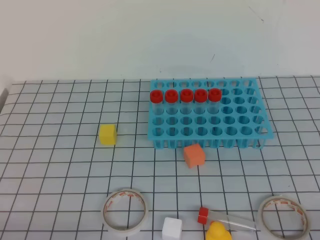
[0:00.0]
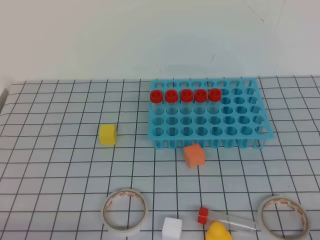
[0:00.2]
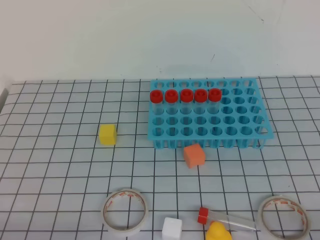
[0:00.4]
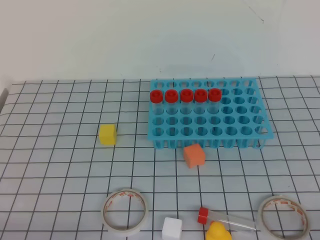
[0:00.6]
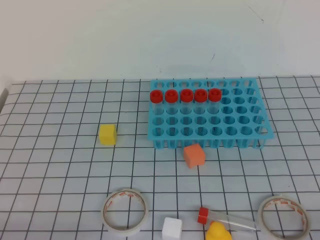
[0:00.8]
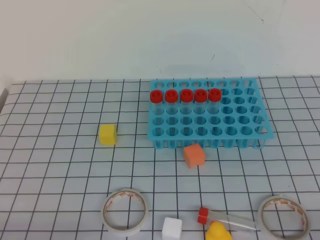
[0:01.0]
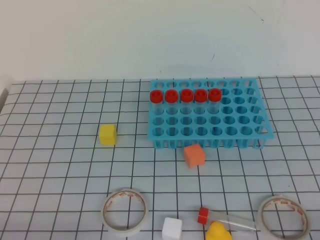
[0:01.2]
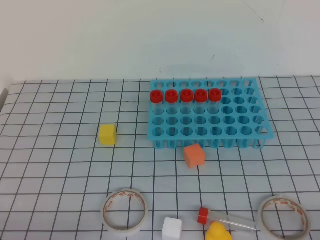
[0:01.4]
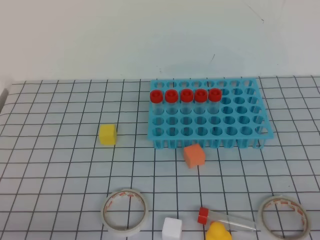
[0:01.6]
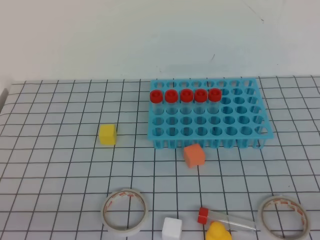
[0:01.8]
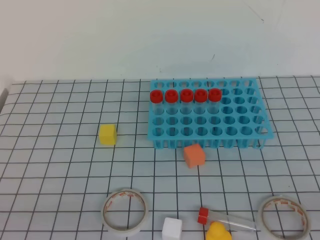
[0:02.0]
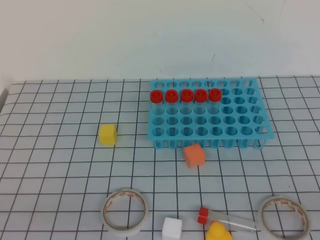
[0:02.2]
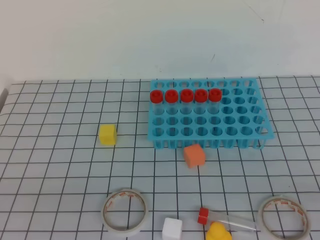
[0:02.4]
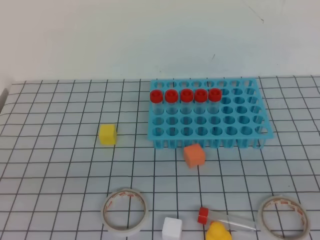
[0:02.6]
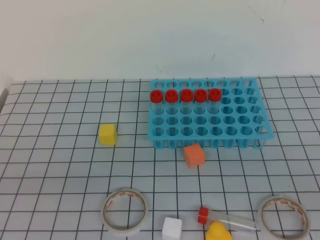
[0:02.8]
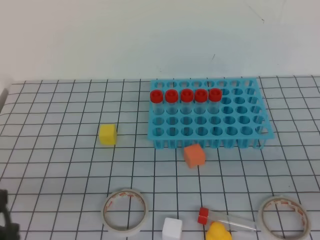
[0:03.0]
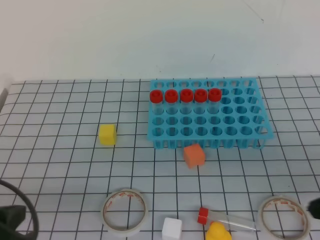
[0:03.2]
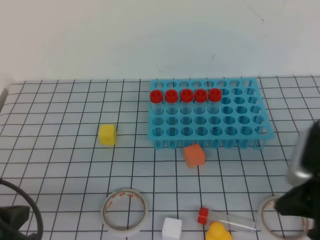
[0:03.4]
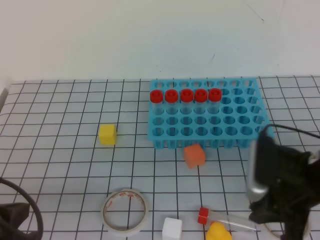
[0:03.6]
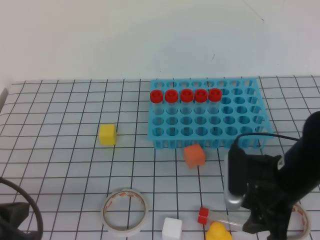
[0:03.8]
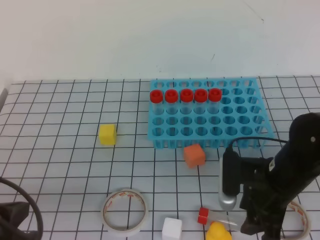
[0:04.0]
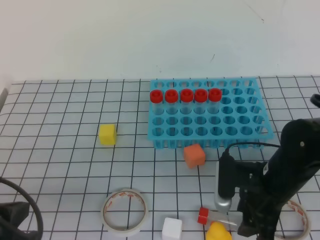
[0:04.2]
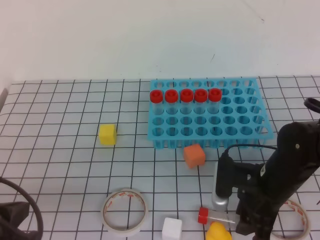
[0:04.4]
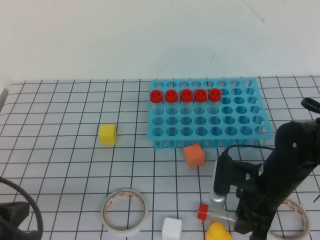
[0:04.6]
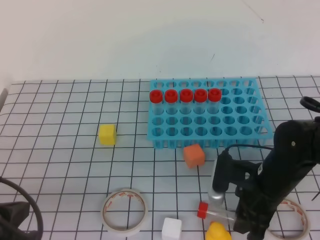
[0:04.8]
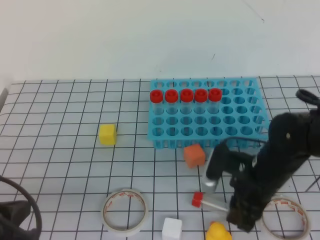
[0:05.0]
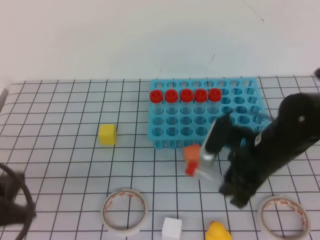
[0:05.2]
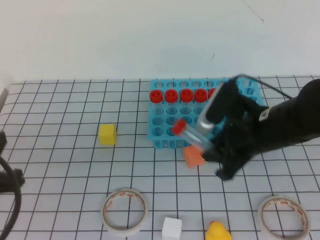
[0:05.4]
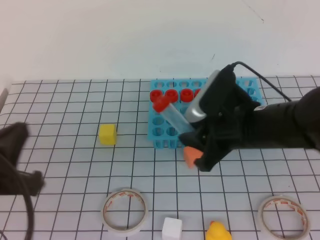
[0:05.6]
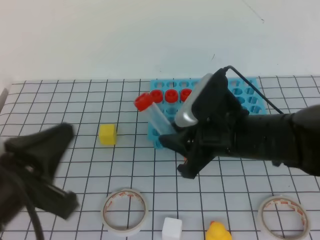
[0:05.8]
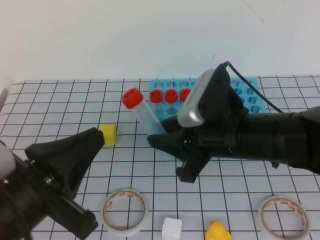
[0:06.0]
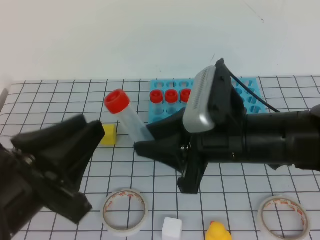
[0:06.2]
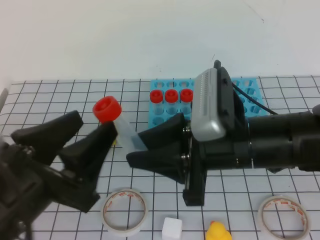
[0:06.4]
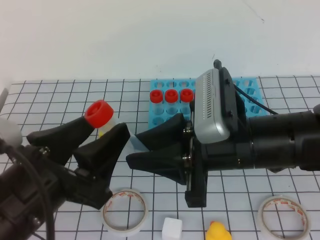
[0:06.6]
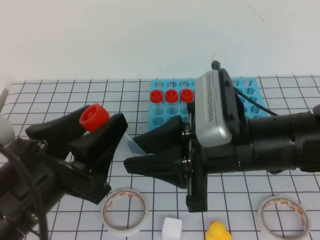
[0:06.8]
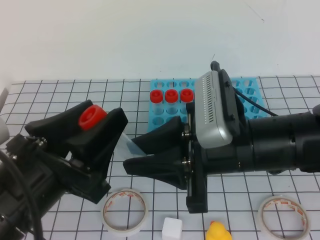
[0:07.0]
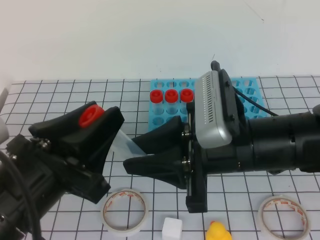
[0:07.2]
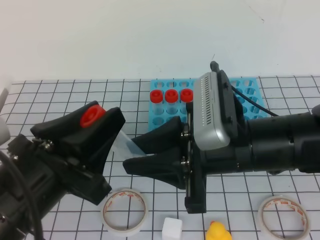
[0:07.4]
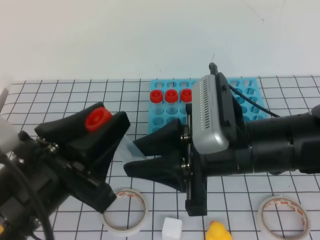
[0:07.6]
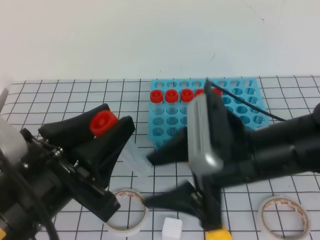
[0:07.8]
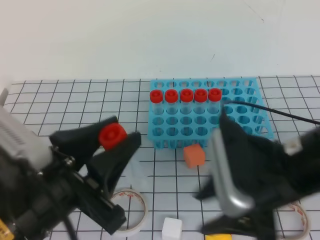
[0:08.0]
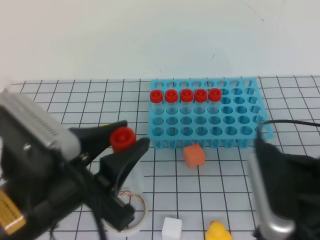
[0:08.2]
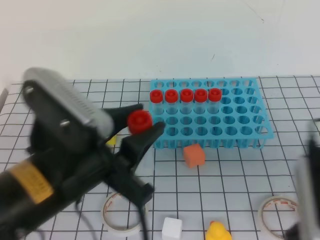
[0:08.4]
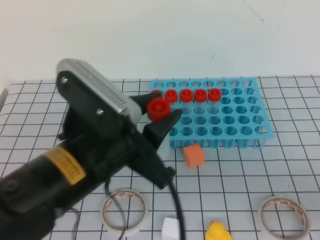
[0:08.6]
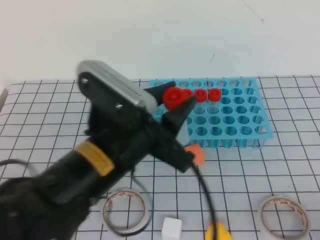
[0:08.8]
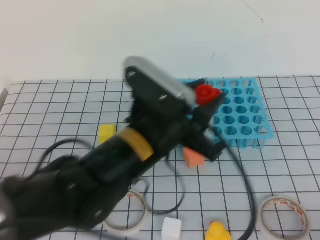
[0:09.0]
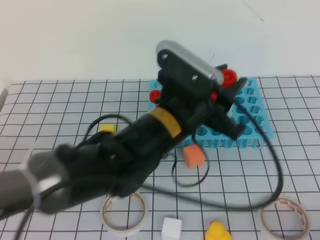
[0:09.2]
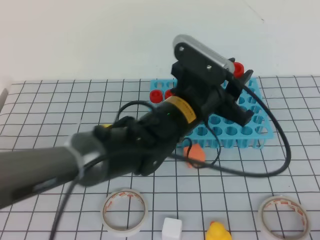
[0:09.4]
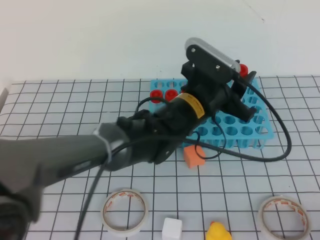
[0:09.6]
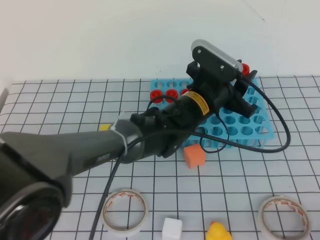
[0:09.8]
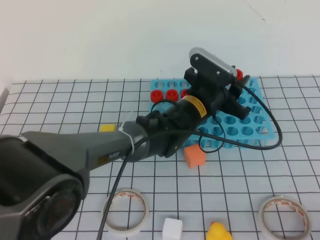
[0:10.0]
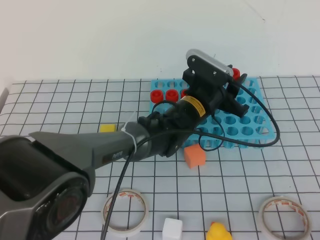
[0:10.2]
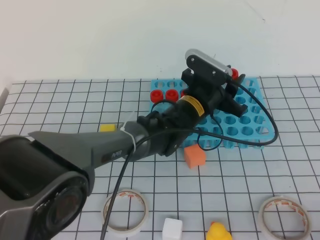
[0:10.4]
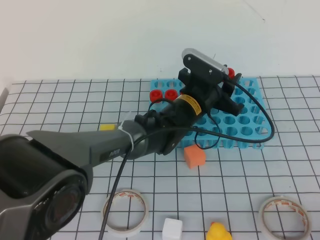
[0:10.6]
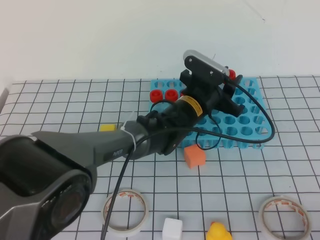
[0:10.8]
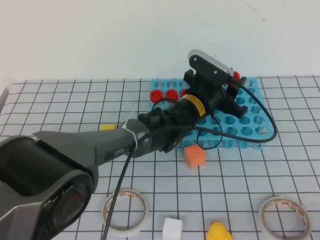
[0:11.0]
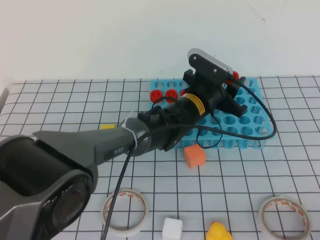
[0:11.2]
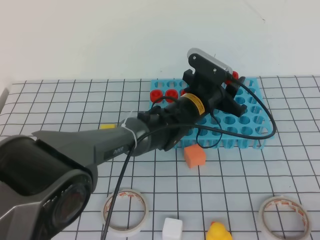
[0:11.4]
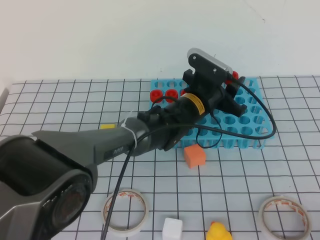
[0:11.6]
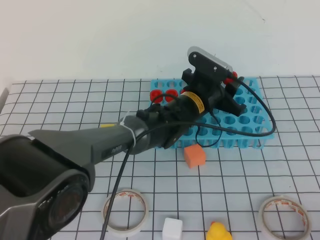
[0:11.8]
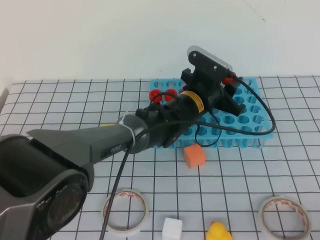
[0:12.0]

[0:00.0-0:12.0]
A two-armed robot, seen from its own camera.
0:01.6 to 0:03.0: The left gripper is displaced upward and forward by some 10 cm.
0:03.0 to 0:04.4: The right gripper goes roughly 25 cm forward, to the left and downward, and opens its fingers.
0:04.4 to 0:06.0: The right gripper travels upward and to the left by about 15 cm, while the left gripper shifts approximately 10 cm to the right and upward.
0:06.0 to 0:07.6: The left gripper opens.
0:07.6 to 0:09.0: The left gripper travels to the right and forward by approximately 15 cm. The right gripper shifts some 25 cm to the right and backward, and closes its fingers.
0:09.0 to 0:10.4: The left gripper heads forward, downward and to the right, covering roughly 25 cm.
0:10.4 to 0:12.0: The grippers stay close to where they were, moving slightly.

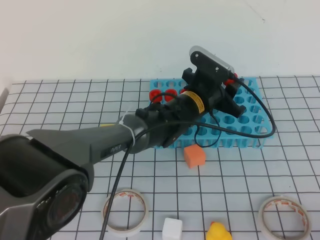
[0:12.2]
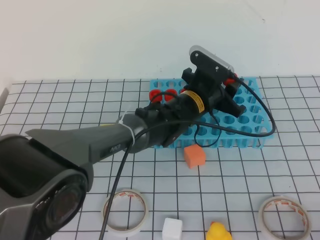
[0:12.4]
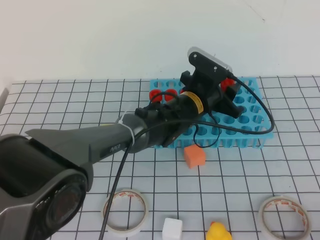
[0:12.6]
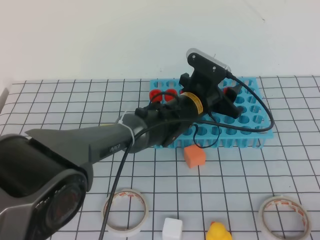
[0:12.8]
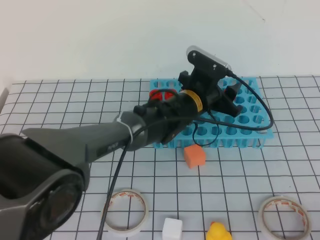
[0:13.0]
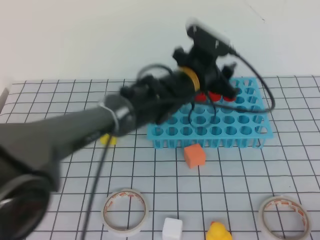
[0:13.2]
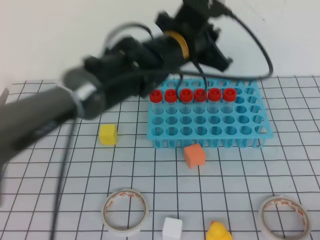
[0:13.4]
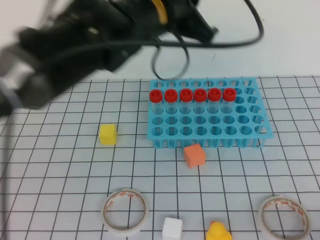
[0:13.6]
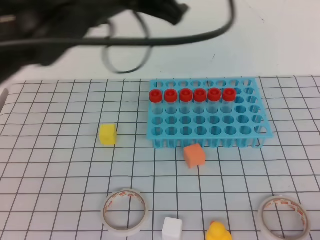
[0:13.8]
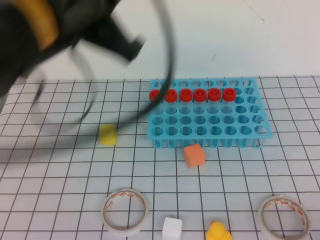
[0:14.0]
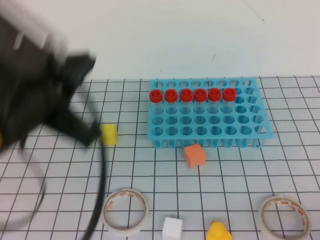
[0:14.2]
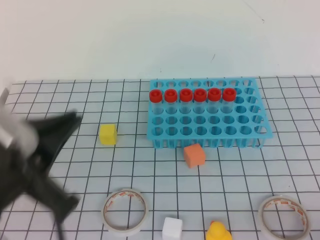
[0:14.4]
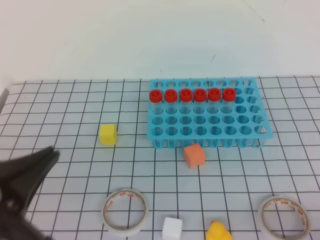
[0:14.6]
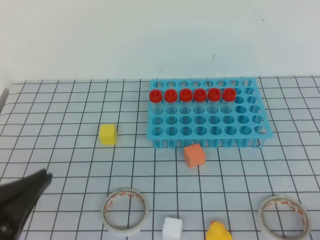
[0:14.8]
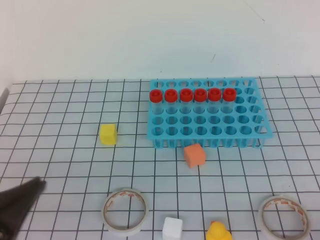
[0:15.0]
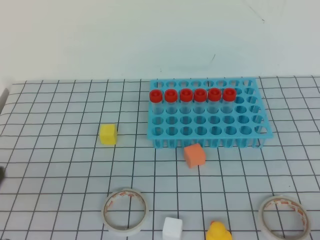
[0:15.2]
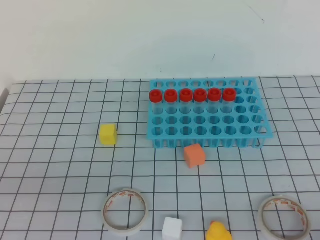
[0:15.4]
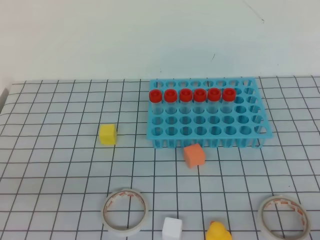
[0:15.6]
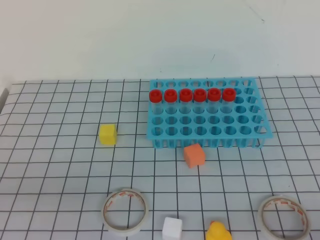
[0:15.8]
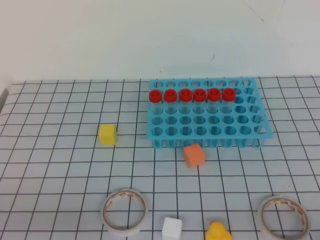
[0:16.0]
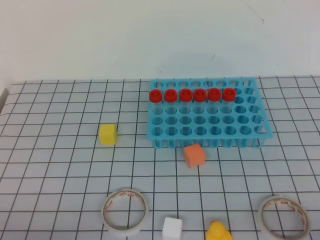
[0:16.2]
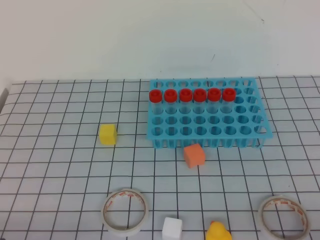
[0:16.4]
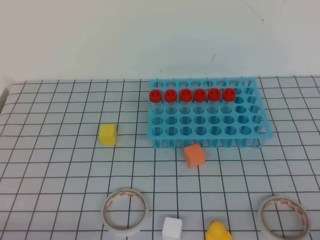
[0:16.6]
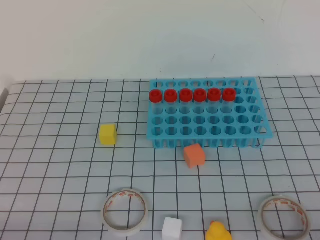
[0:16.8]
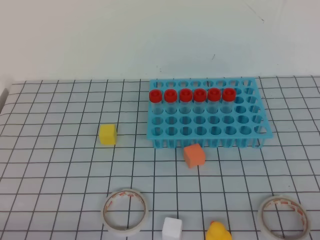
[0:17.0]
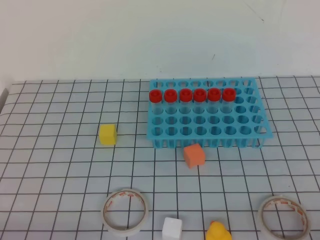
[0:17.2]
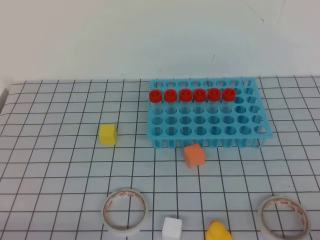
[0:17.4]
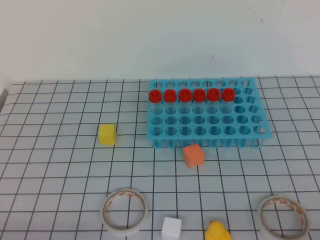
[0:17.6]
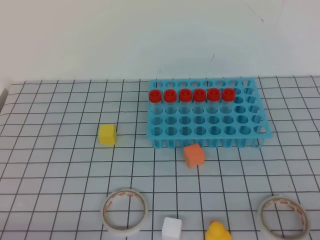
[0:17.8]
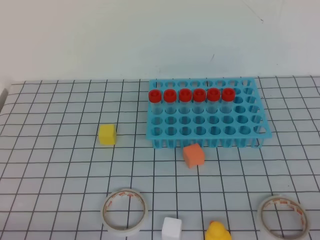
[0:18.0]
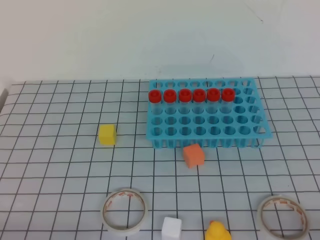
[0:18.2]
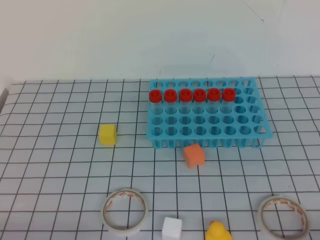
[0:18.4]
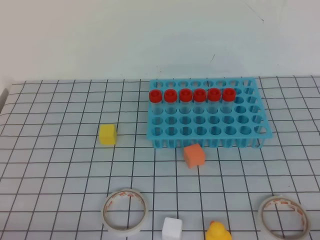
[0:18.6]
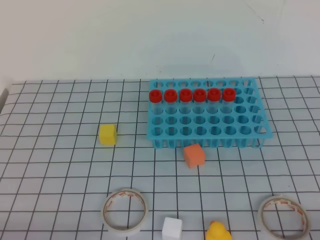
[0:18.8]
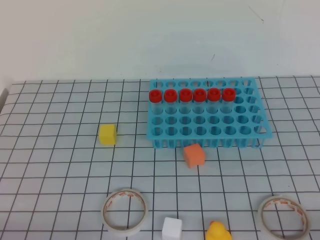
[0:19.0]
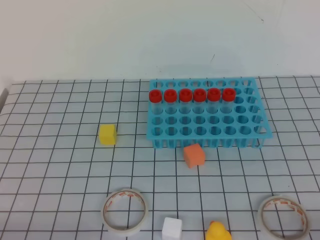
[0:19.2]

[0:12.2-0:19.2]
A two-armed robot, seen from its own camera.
0:12.2 to 0:13.6: The left gripper shifts about 20 cm upward, and closes up.
0:13.6 to 0:15.0: The left gripper moves backward, to the left and downward, about 35 cm.
0:15.0 to 0:16.4: The left gripper moves downward, approximately 10 cm.
